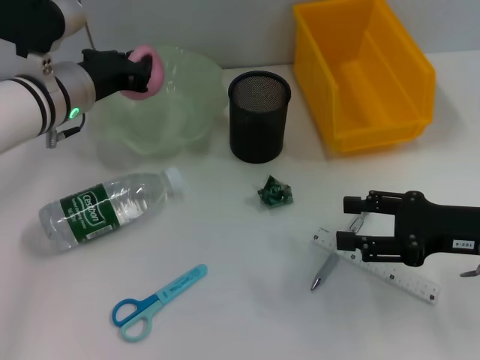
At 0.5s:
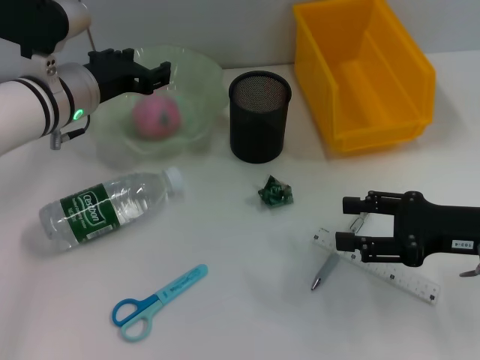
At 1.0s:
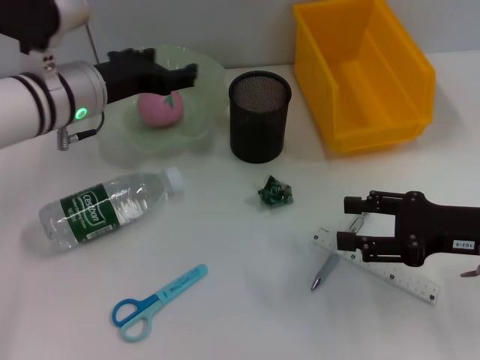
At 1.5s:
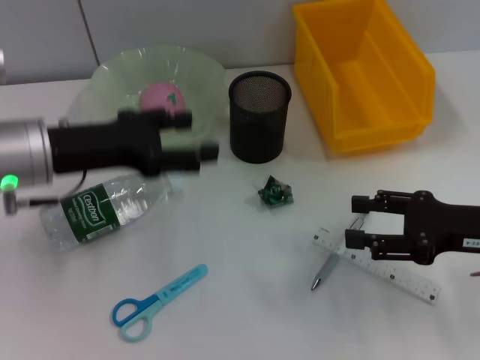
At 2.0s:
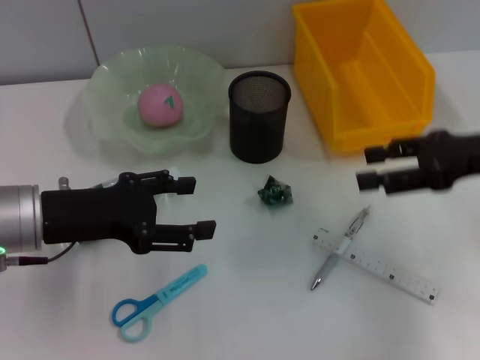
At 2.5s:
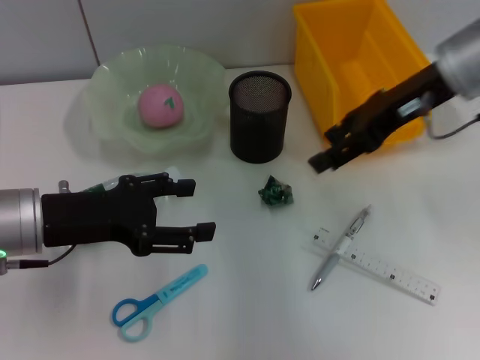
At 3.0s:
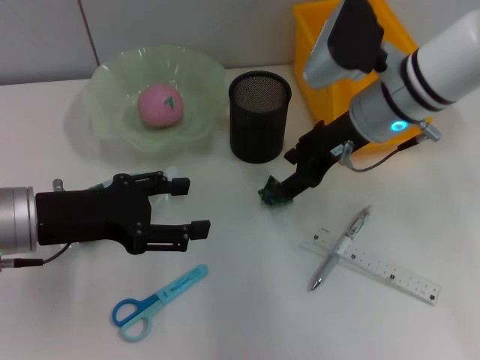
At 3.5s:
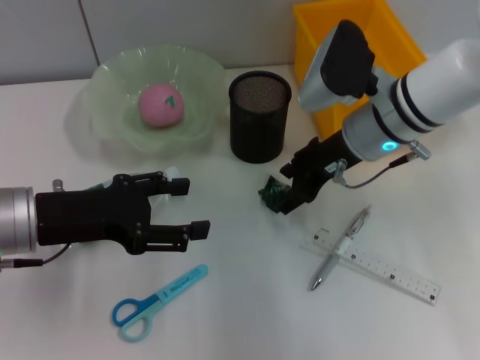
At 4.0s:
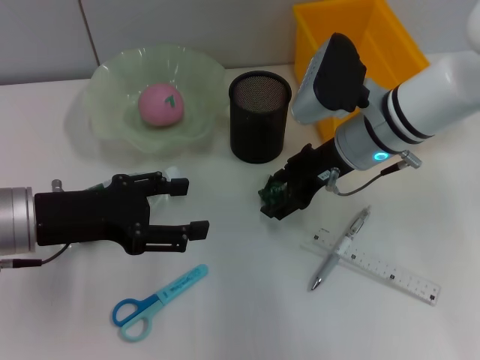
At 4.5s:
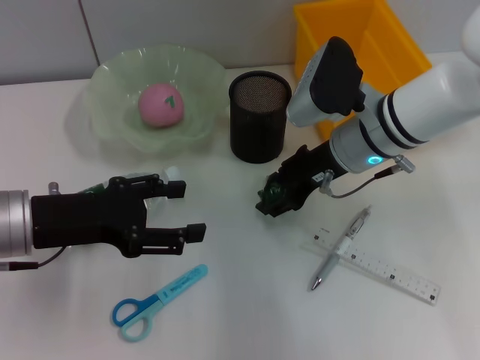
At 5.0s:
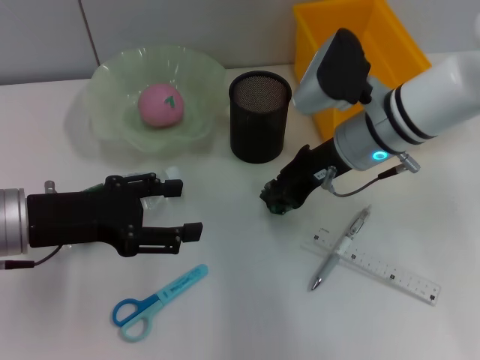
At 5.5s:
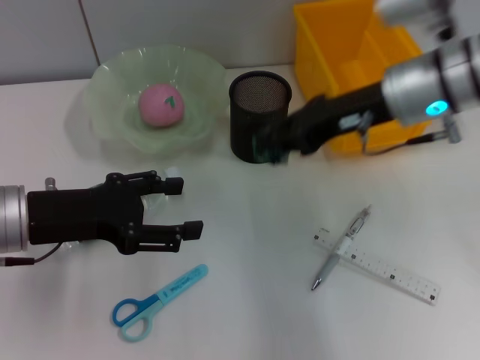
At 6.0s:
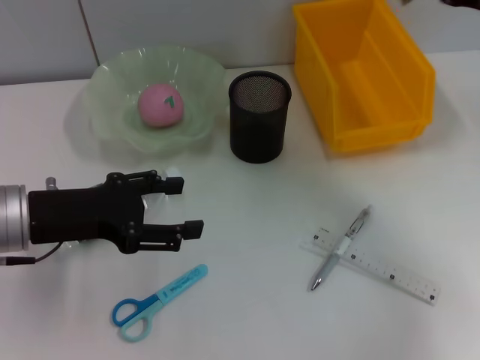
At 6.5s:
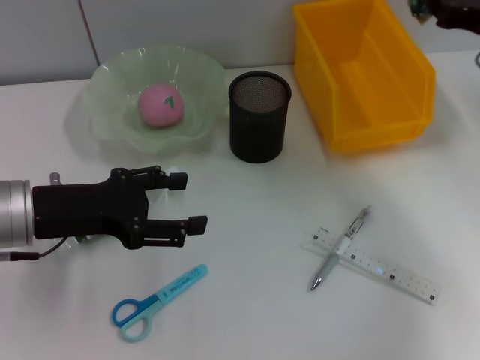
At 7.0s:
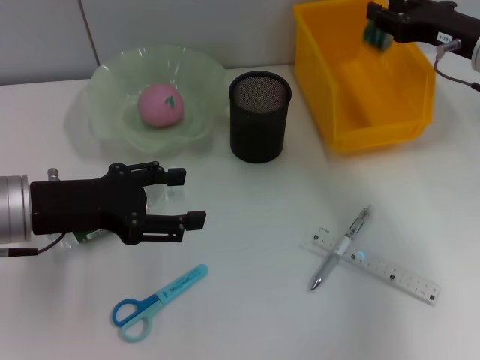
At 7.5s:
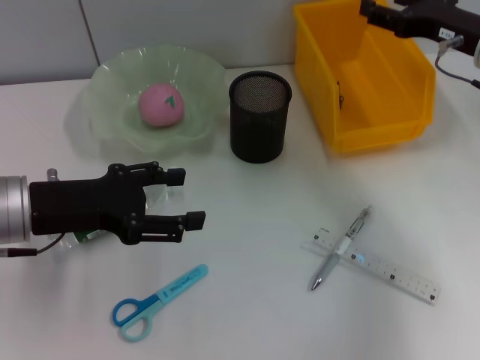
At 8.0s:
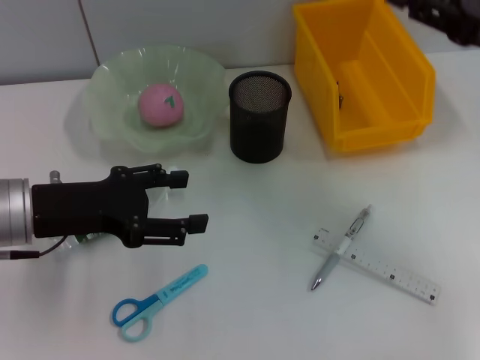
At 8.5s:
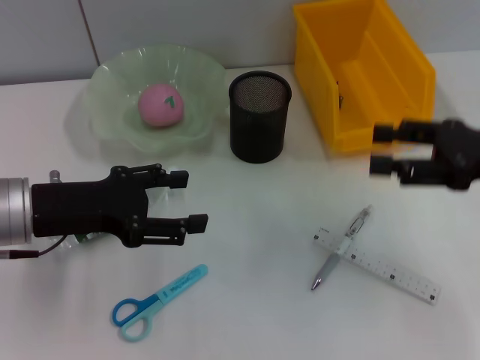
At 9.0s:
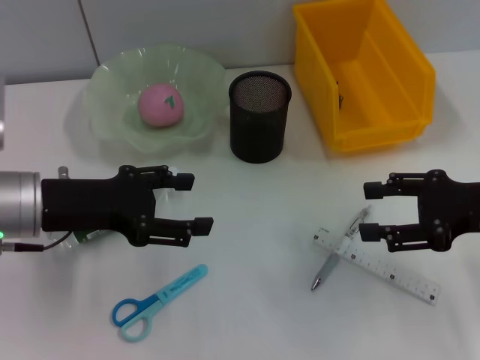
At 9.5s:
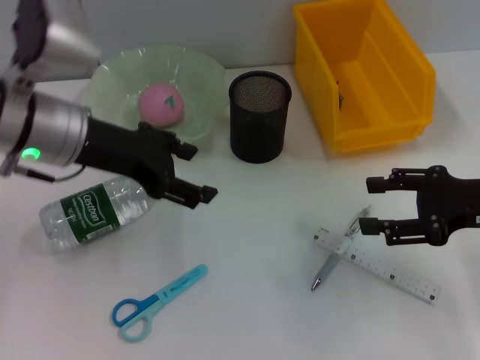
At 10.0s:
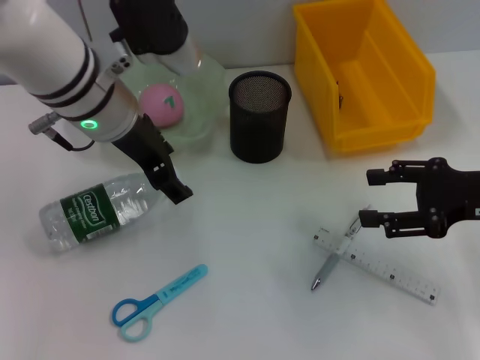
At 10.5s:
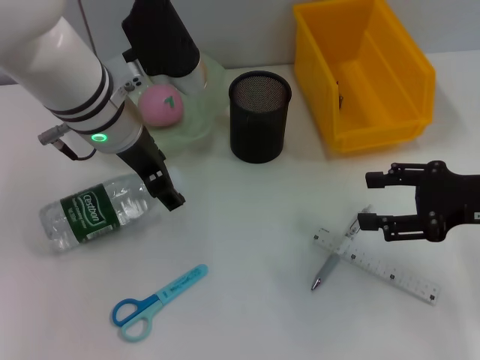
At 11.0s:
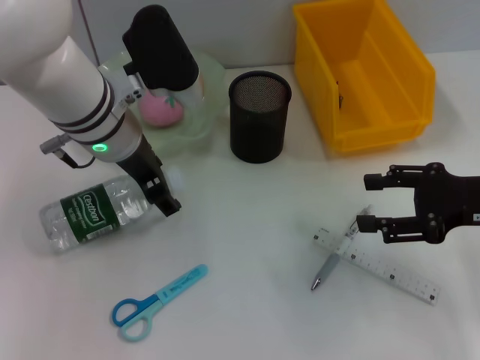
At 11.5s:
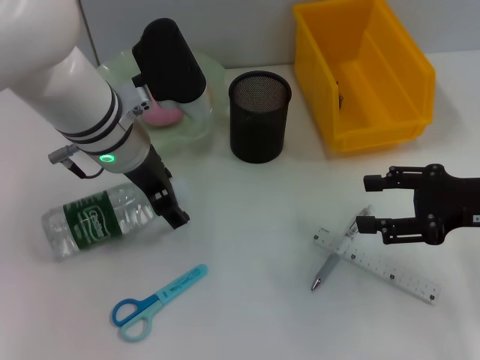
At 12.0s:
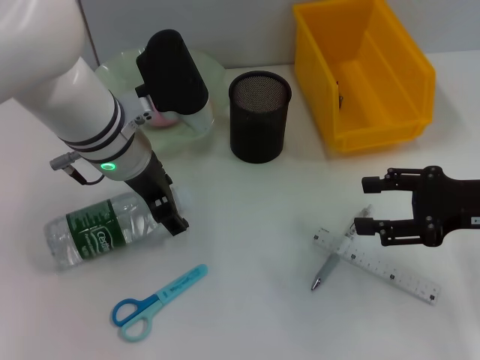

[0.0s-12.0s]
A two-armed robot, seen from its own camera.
Step, 1.0s to 4.5s: Grab the plastic with the right hand.
Step, 5.0s to 7.0s: Place the plastic into the trash can with the right hand.
0.0s to 2.0s: The right gripper moves upward, approximately 10 cm; the left gripper heads backward, covering about 10 cm, and opens up.
2.0s to 4.0s: The right gripper heads to the left and forward, covering some 15 cm.
4.0s to 6.0s: The right gripper moves to the right and upward, about 20 cm, and closes its fingers.
6.0s to 8.0s: The right gripper opens.
8.0s to 10.0s: The right gripper travels downward by about 5 cm; the left gripper is displaced to the right, forward and upward by some 15 cm.
10.0s to 12.0s: The left gripper ends up about 5 cm from where it was.

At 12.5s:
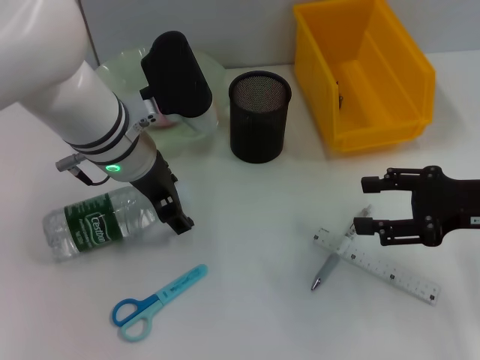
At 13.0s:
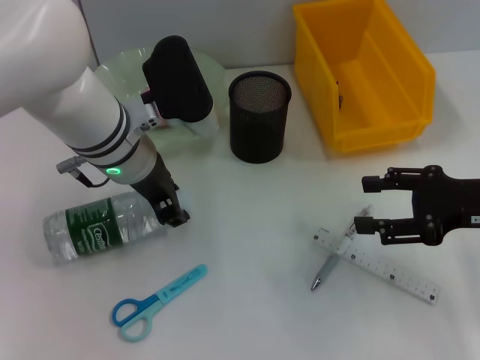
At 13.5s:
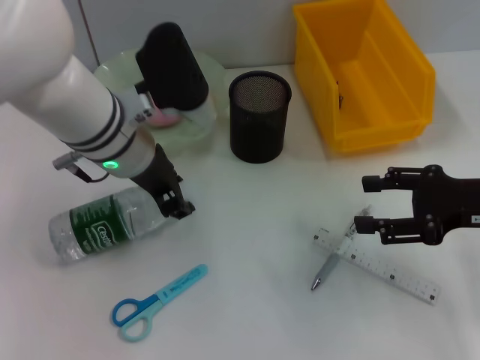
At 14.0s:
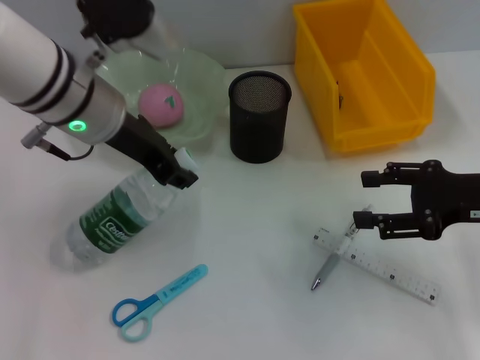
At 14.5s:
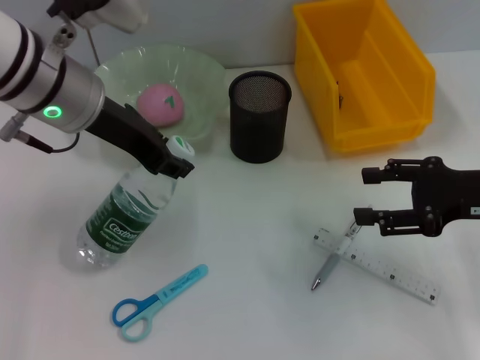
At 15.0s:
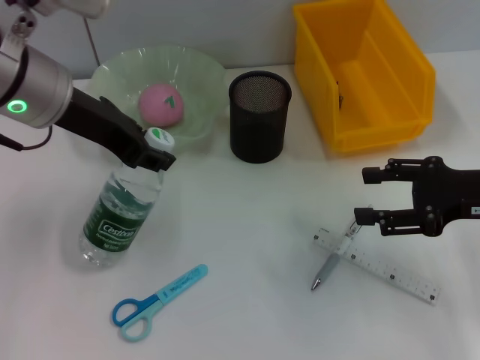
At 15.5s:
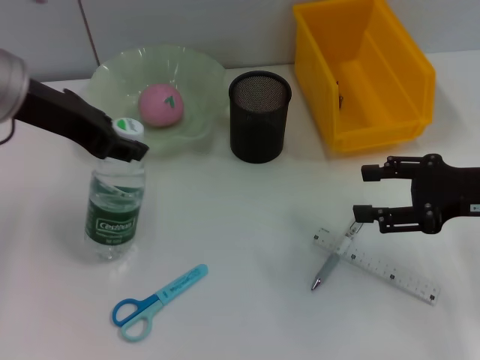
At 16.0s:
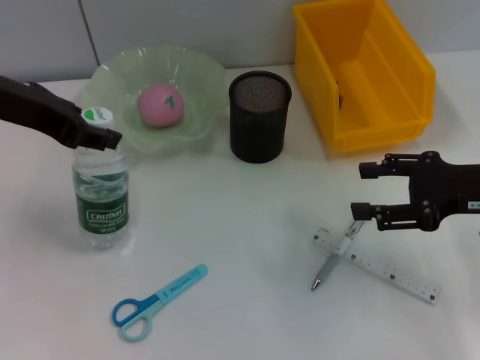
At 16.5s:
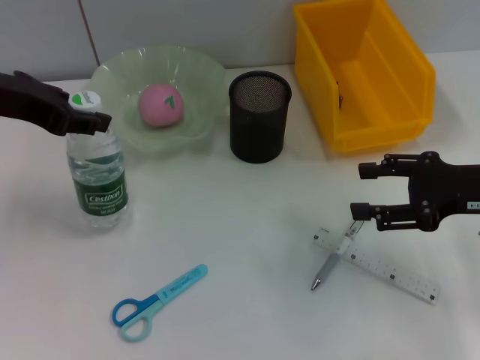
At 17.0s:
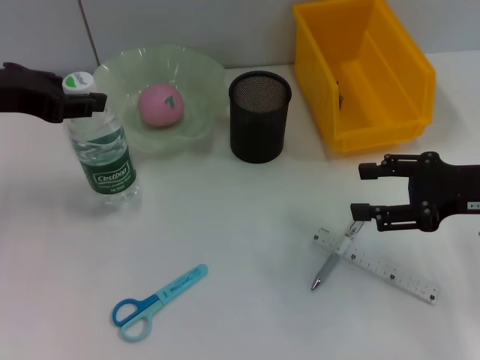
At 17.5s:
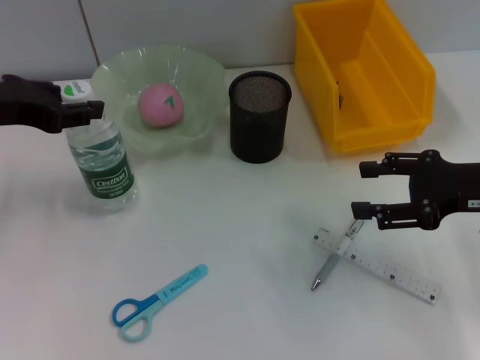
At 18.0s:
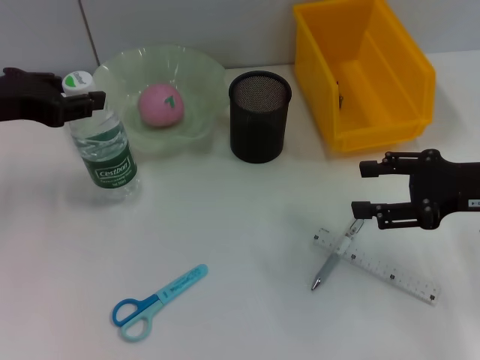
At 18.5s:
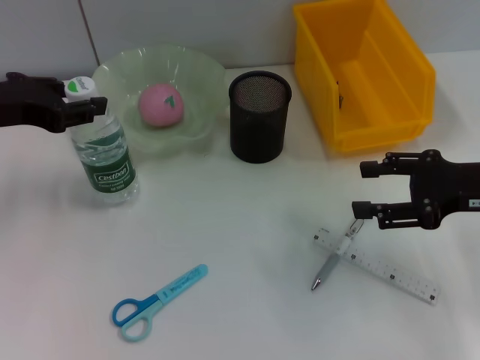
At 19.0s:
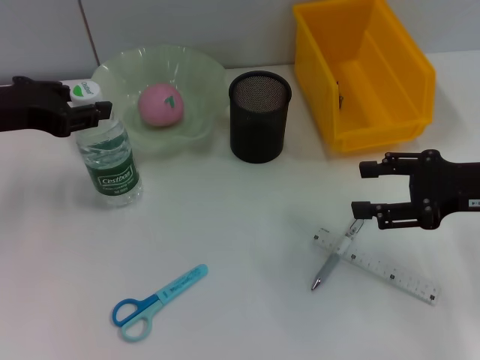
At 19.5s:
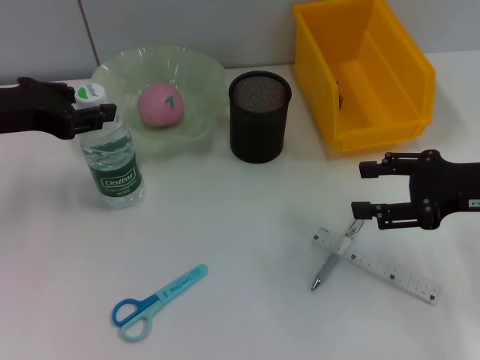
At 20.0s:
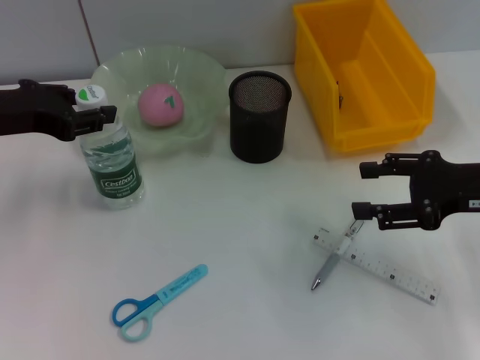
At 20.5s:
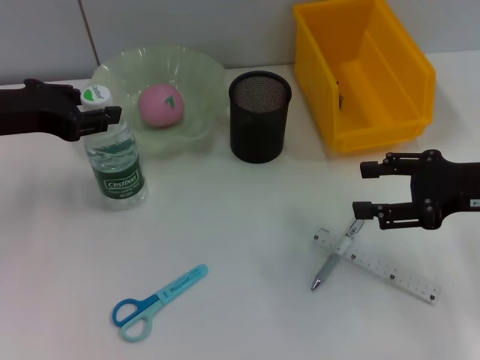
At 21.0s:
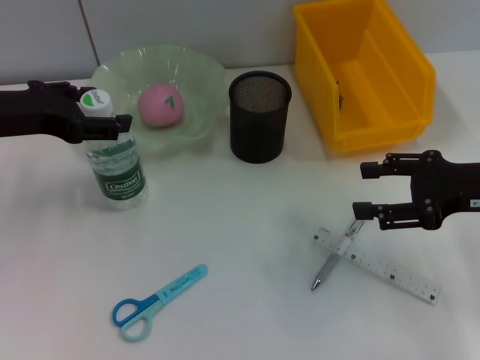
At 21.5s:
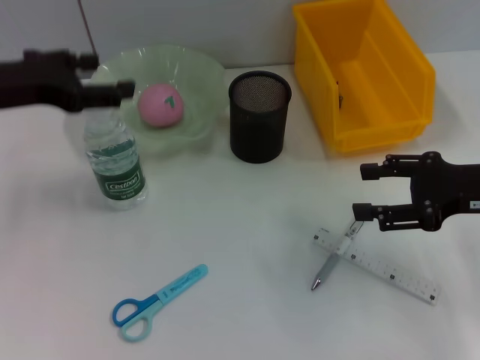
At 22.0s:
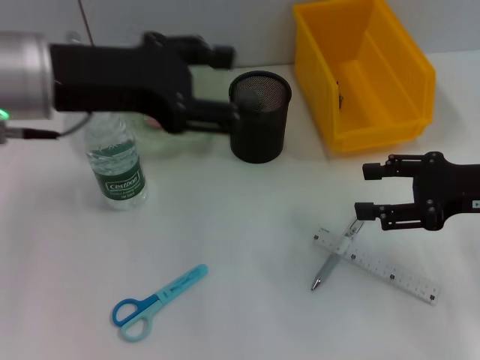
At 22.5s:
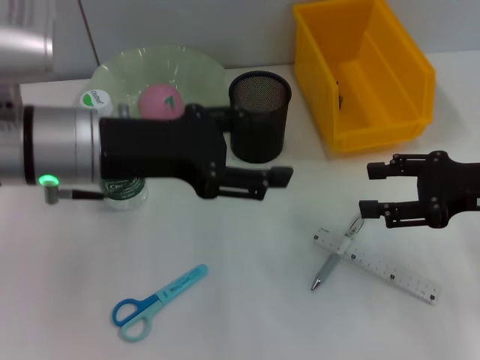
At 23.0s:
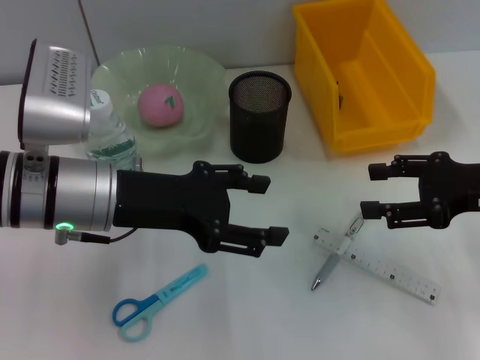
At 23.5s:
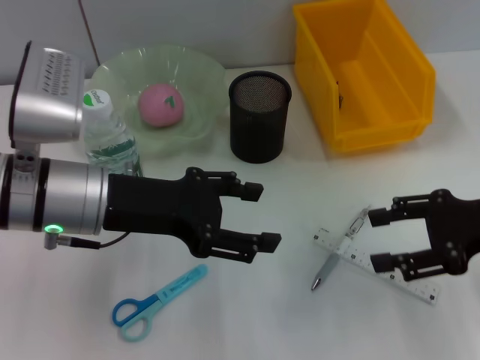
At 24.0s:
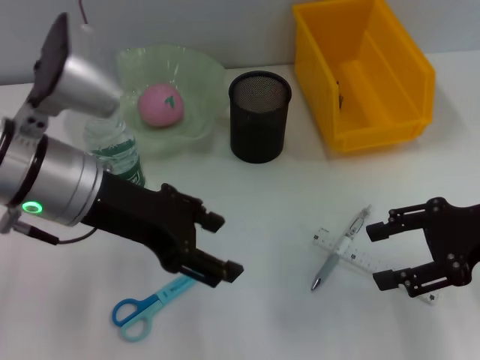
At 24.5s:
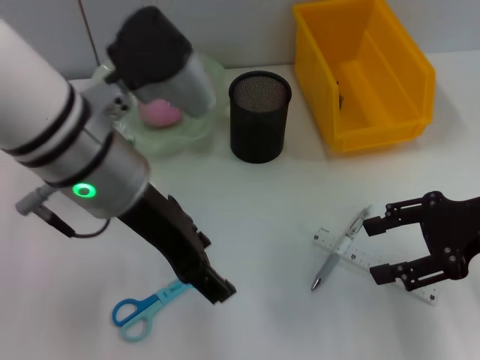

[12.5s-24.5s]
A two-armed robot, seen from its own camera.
Step, 13.5s to 21.0s: Place the water bottle on the table with the left hand.
12.5s to 14.5s: The left gripper is displaced upward by approximately 5 cm, and closes up.
14.5s to 16.5s: The left gripper heads to the left, covering approximately 10 cm.
16.5s to 18.5s: The left gripper goes about 5 cm downward.
18.5s to 20.5s: The two grippers keep their place.
20.5s to 22.5s: The left gripper moves to the right, some 10 cm, and opens up.
22.5s to 24.5s: The left gripper is displaced to the right by roughly 5 cm.

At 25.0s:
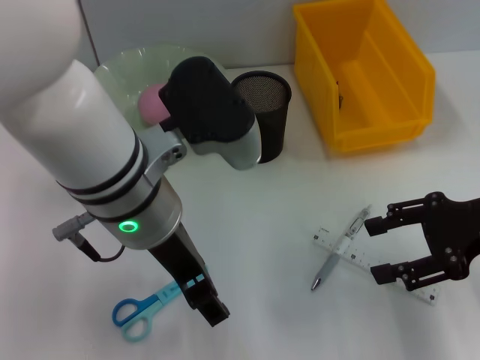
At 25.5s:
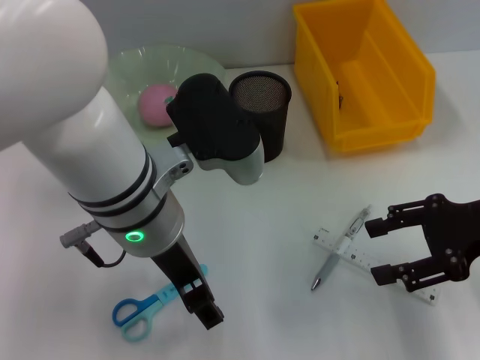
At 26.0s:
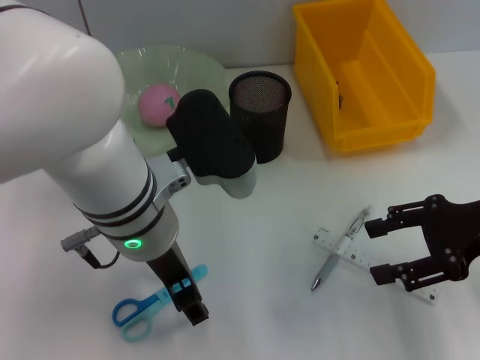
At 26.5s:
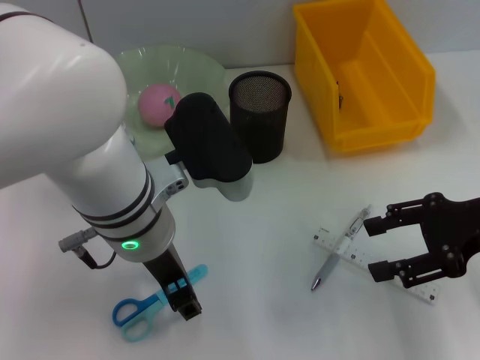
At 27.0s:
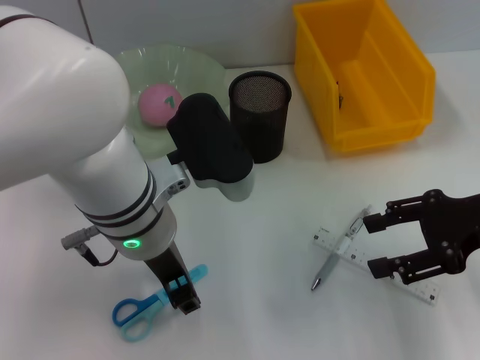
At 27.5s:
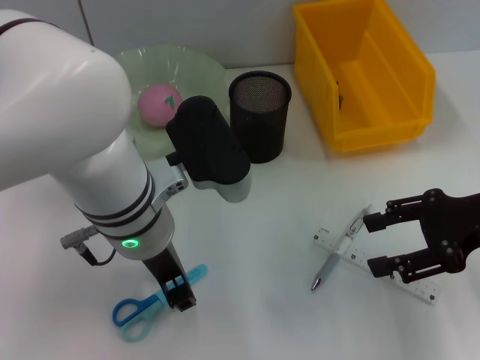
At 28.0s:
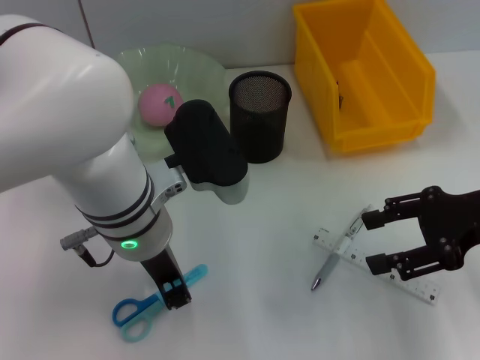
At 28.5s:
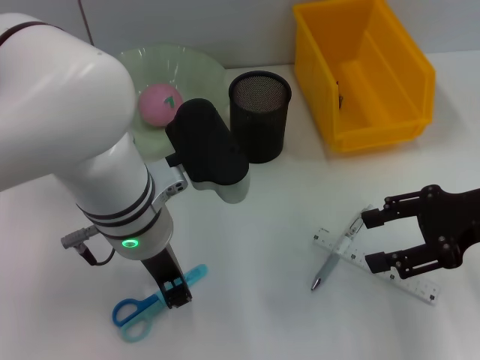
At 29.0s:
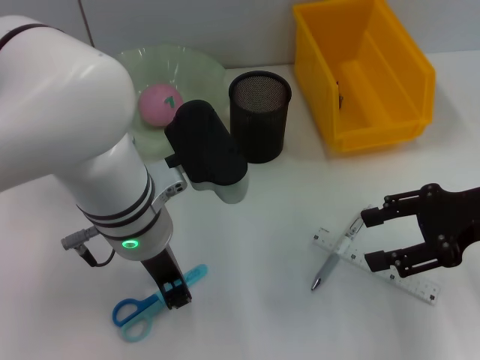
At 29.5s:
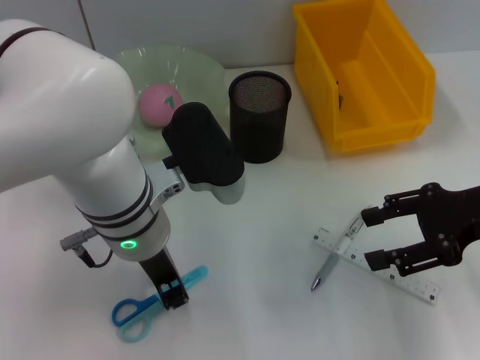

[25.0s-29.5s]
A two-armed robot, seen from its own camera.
27.0s to 29.5s: The left gripper closes its fingers.
